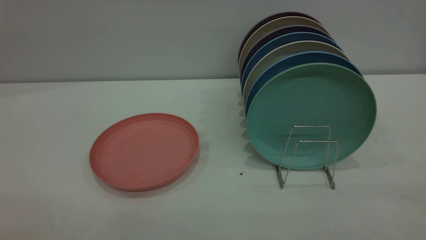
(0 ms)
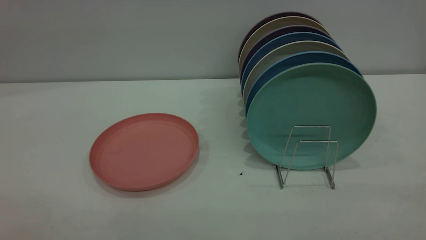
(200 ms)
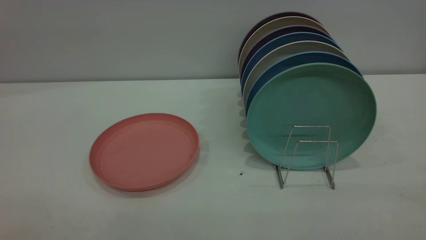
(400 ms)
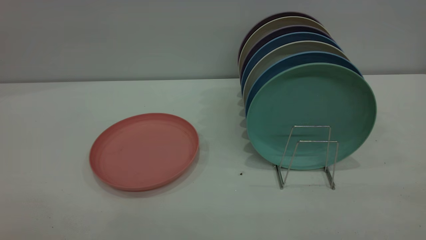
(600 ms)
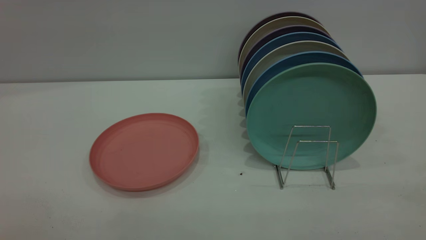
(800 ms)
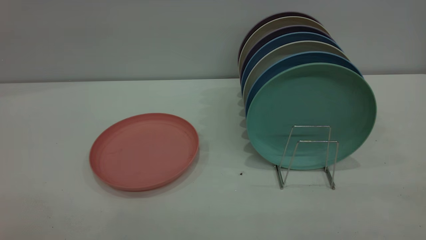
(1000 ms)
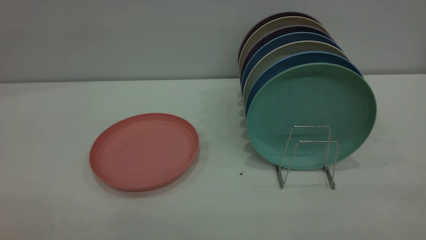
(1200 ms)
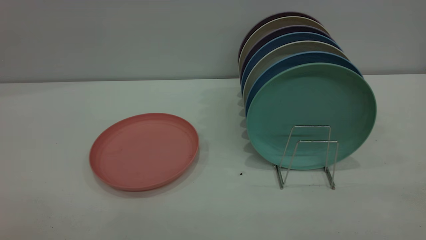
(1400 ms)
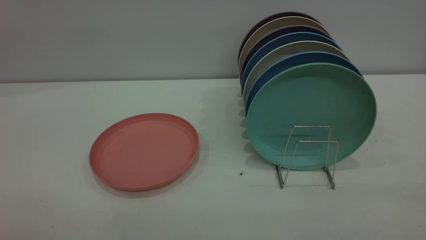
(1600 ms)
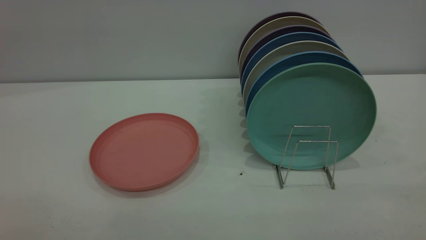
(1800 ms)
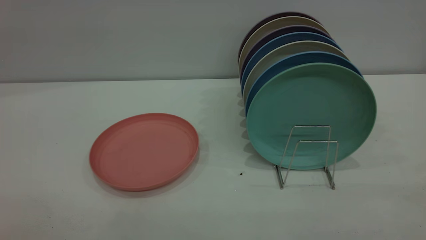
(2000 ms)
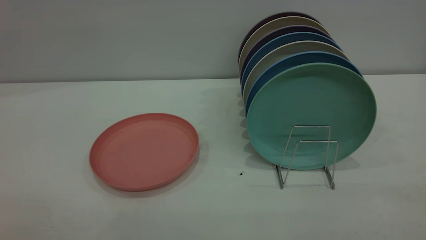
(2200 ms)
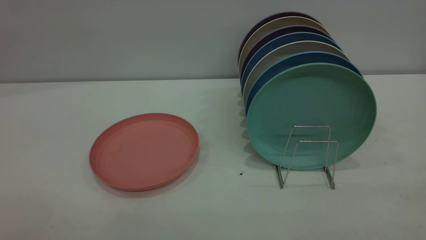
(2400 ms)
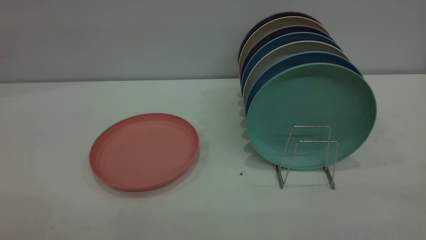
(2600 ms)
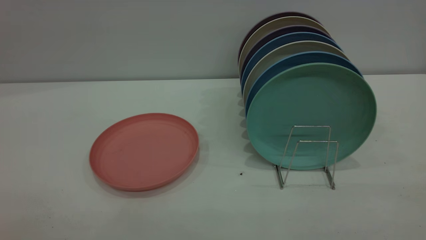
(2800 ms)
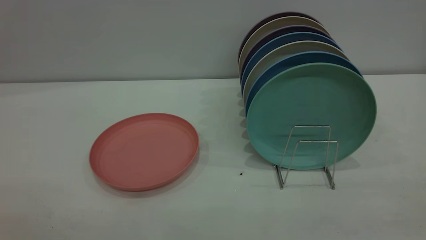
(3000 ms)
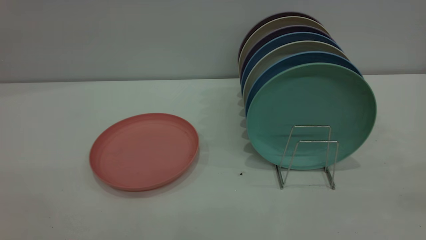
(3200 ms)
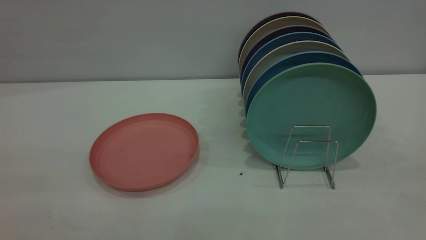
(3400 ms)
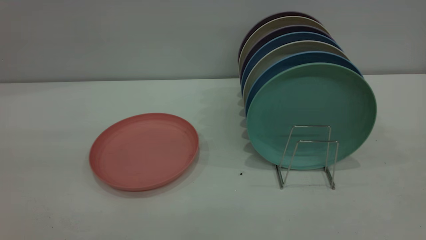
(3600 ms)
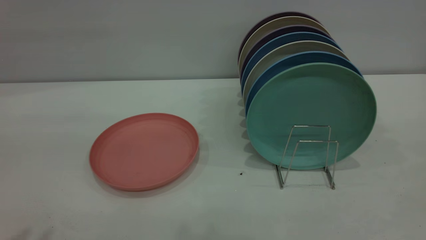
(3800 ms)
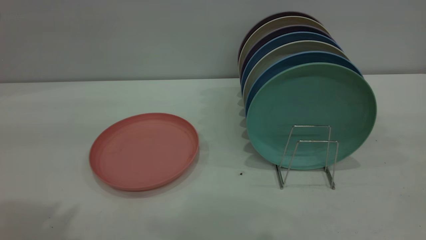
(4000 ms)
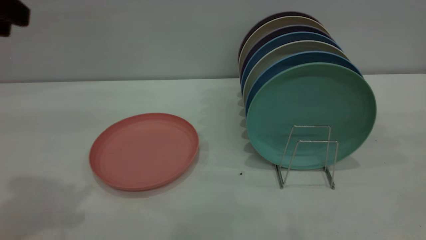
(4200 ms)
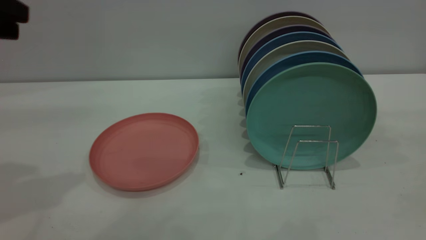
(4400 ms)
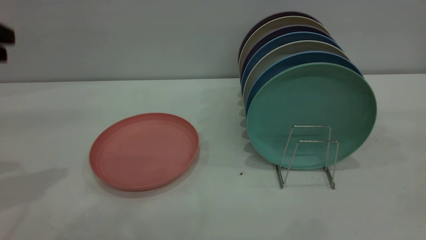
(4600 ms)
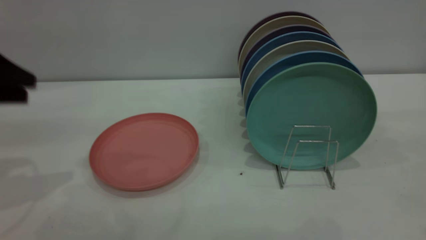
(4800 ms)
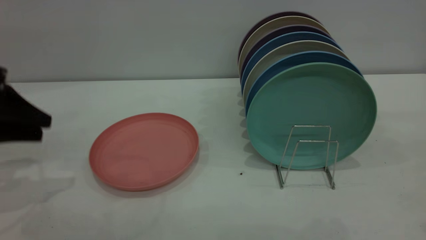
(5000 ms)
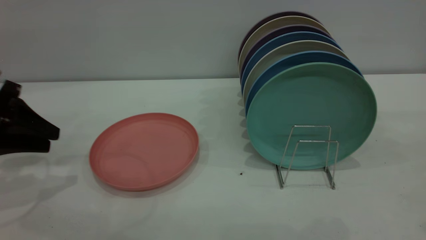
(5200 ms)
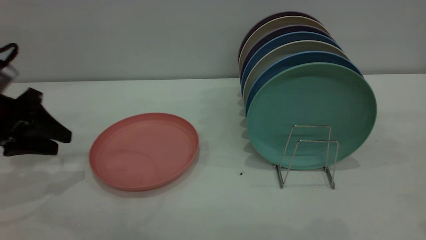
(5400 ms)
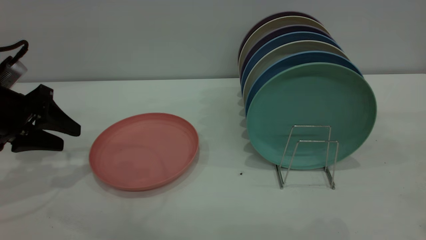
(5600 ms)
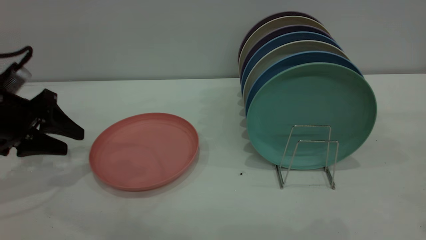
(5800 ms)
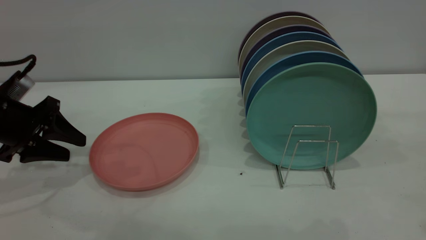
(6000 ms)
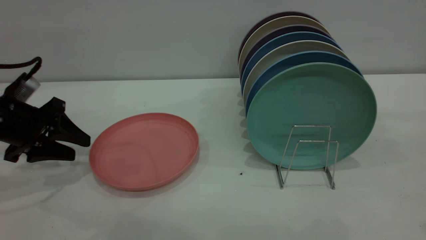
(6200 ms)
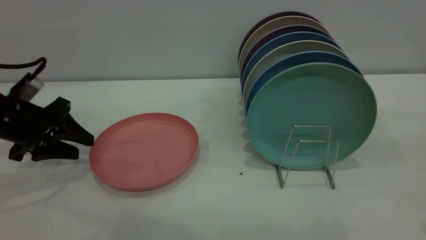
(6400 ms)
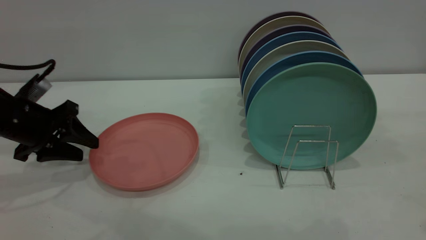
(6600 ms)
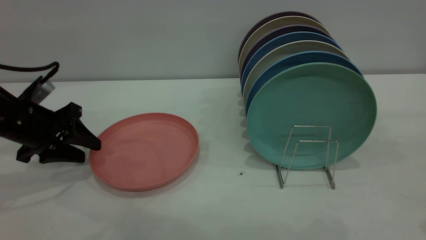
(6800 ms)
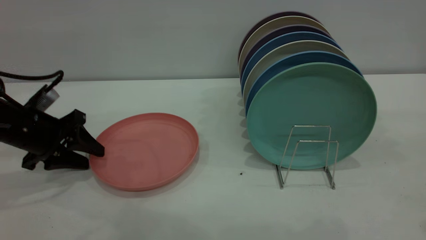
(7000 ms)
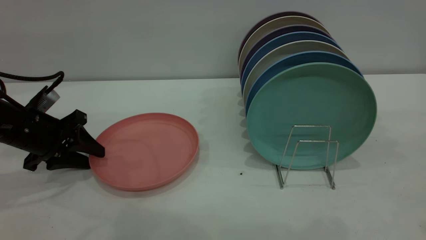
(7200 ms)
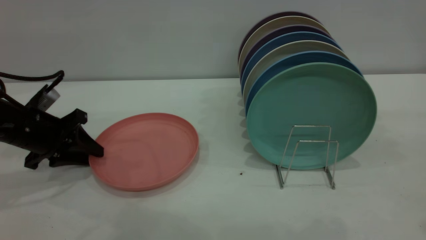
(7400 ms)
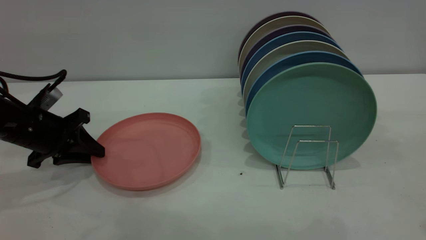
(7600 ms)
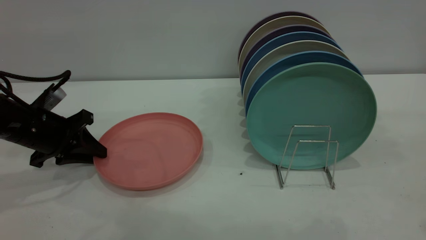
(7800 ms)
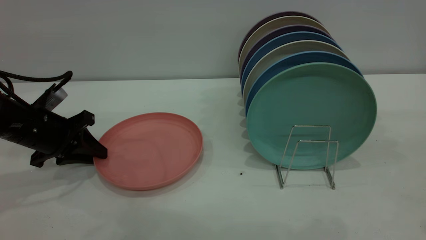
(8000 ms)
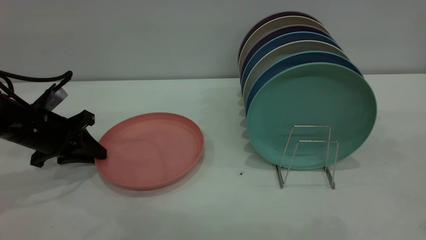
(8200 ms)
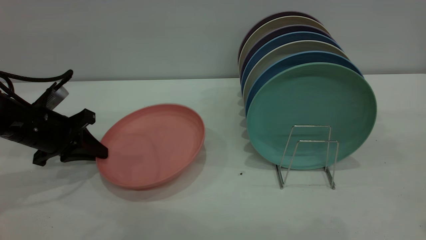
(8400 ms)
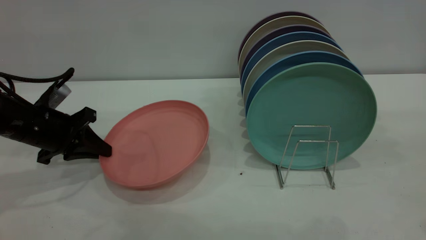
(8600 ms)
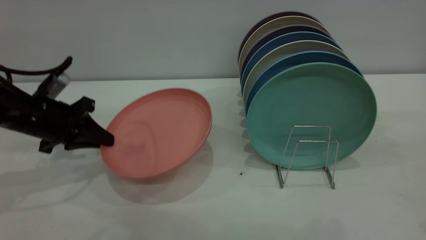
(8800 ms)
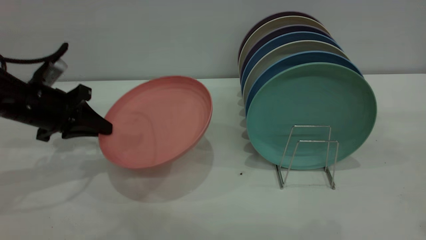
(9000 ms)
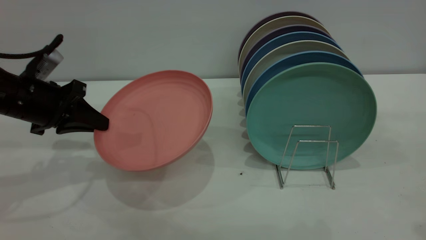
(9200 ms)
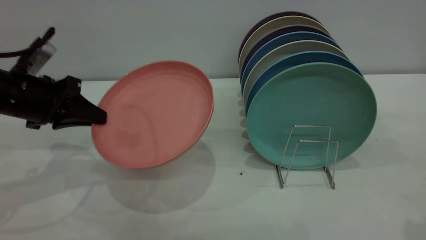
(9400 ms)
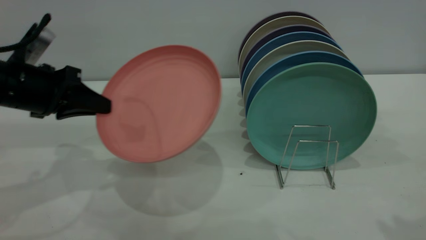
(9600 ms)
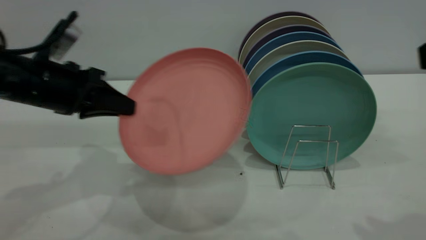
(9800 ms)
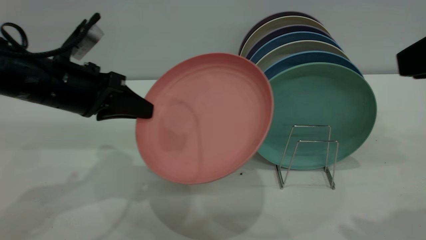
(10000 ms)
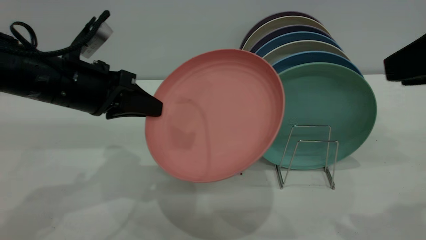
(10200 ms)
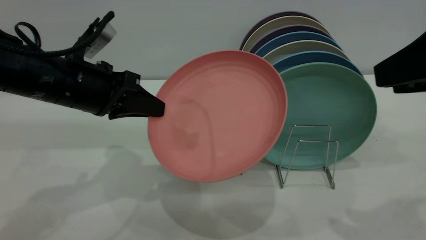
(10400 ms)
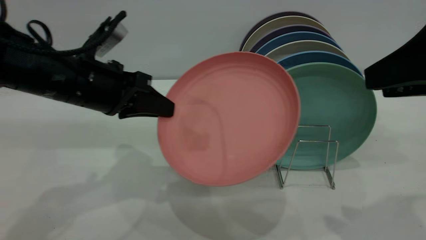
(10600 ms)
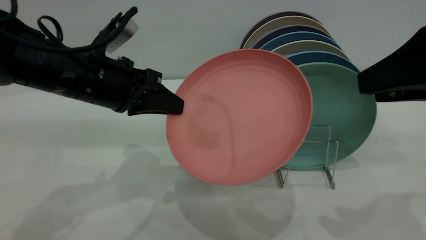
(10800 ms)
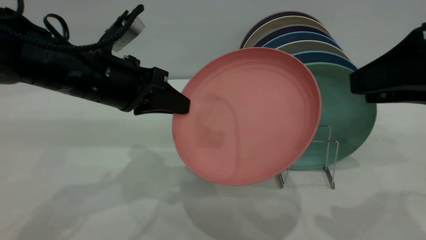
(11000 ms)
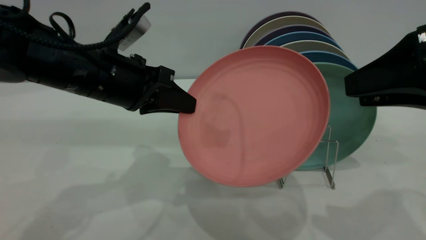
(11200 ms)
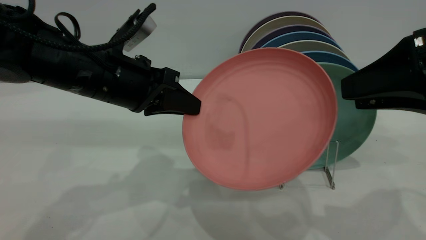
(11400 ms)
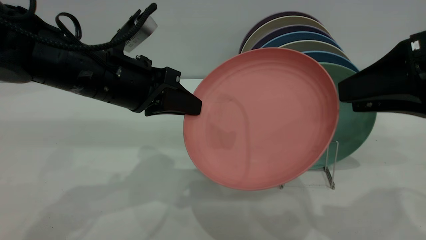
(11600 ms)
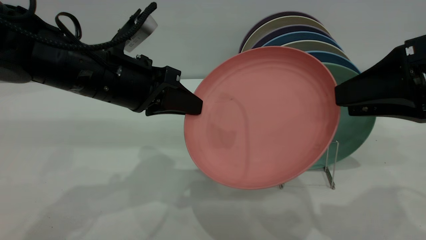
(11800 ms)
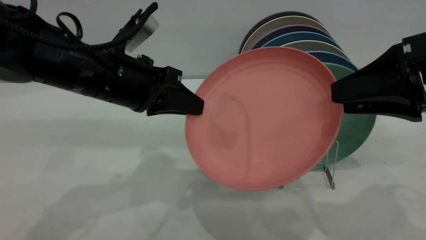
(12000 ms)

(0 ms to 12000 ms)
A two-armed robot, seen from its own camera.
Task of the whole recording: put the plate on the plate rack.
Step, 0 ms - 9000 ms: Pick up the plate with the left gripper.
0 ms - 1600 ms: Both grippers stay about where they are.
3000 ms - 4400 ms: The left gripper shifts some 30 cm forward.
4400 ms - 6000 ms: The left gripper travels downward by about 20 cm.
6000 ms - 7600 ms: The left gripper closes.
7600 ms - 9000 ms: The left gripper closes its fingers.
9000 ms - 10400 ms: The left gripper moves to the right, some 10 cm; the right gripper goes approximately 5 cm to the left, and opens up.
10400 ms - 12000 ms: The right gripper is displaced downward by some 5 cm. The left gripper goes approximately 5 cm to the right.

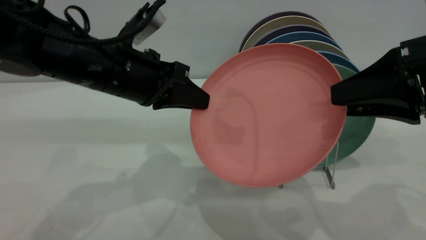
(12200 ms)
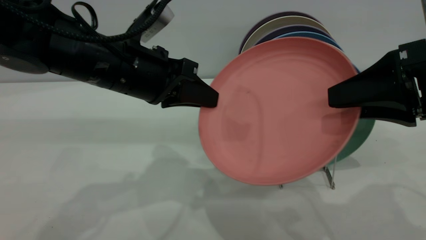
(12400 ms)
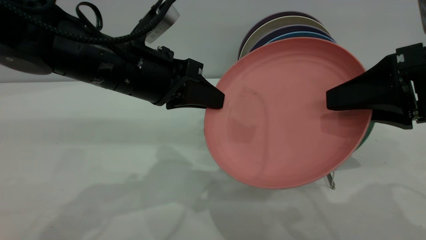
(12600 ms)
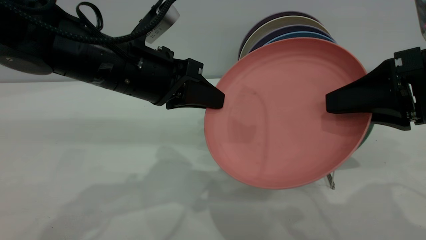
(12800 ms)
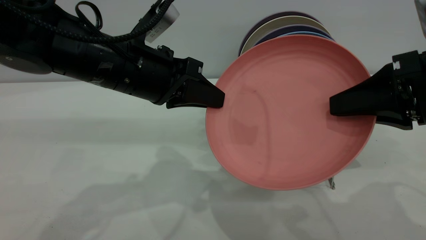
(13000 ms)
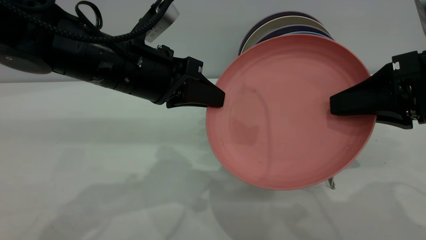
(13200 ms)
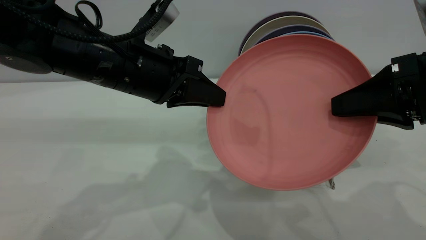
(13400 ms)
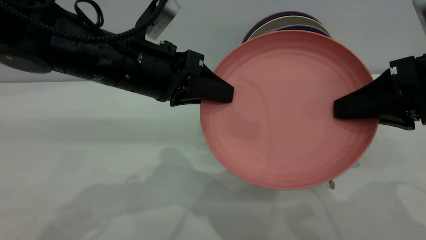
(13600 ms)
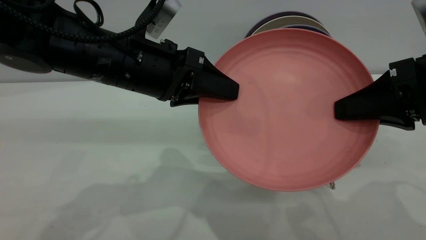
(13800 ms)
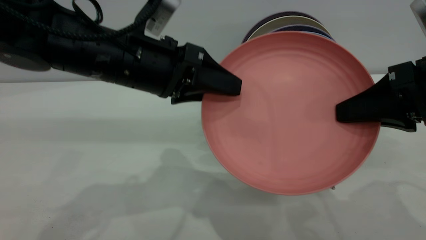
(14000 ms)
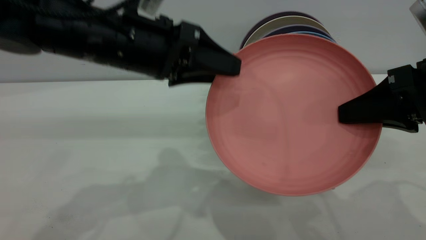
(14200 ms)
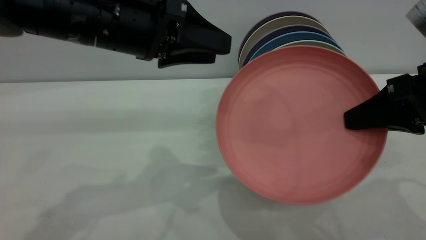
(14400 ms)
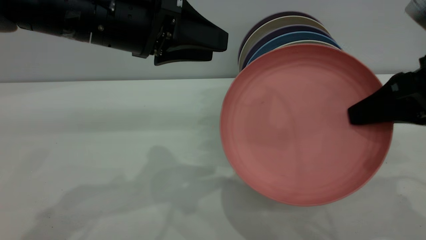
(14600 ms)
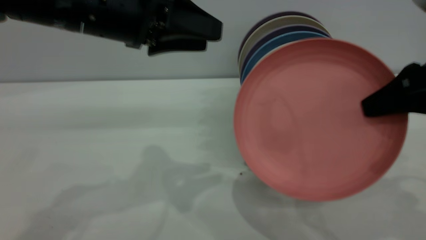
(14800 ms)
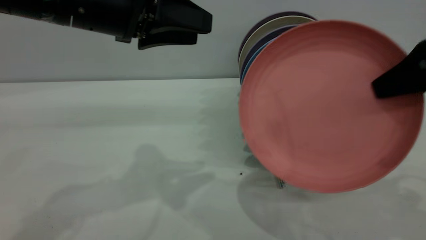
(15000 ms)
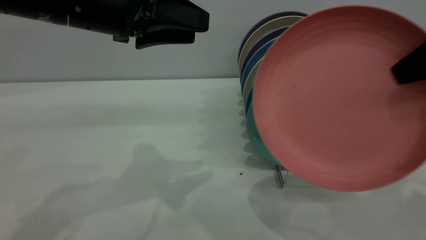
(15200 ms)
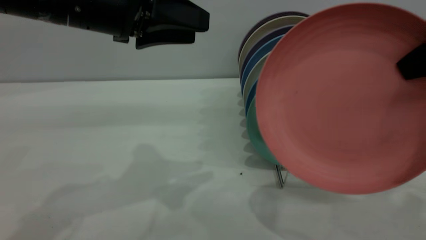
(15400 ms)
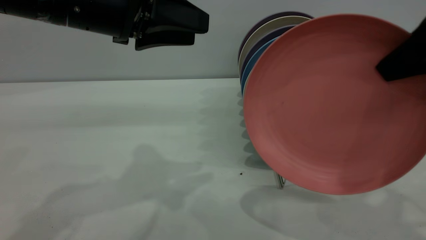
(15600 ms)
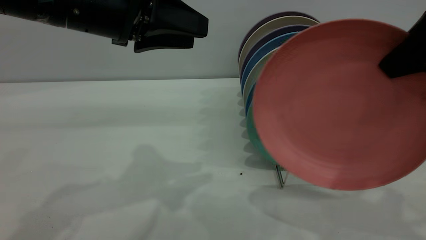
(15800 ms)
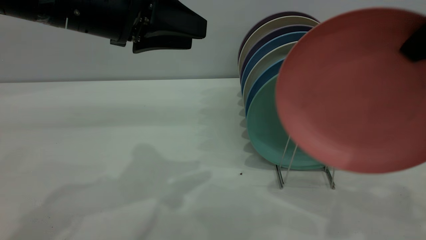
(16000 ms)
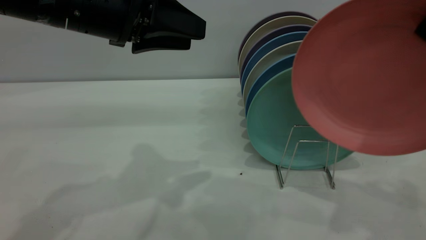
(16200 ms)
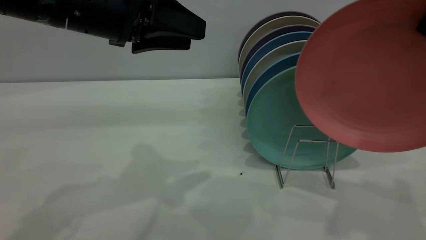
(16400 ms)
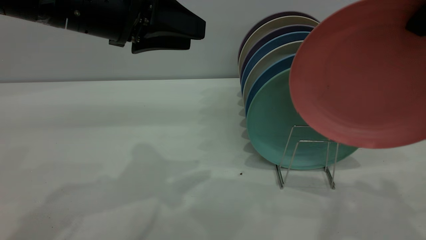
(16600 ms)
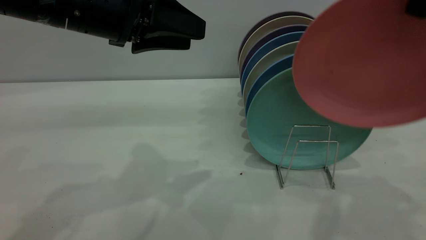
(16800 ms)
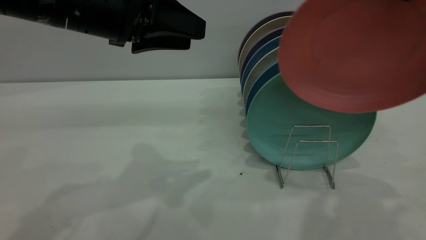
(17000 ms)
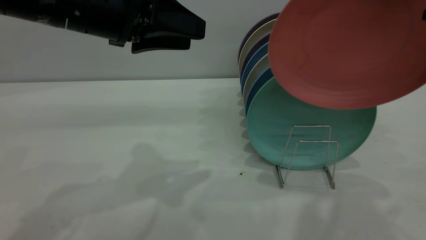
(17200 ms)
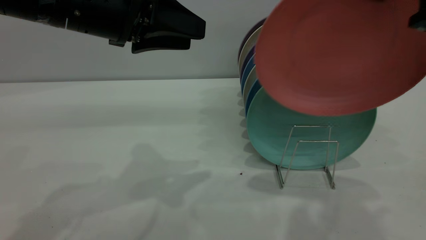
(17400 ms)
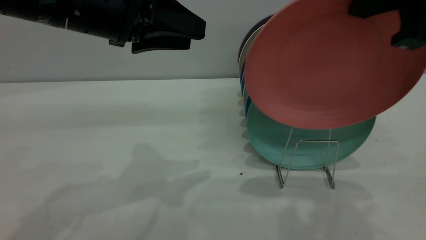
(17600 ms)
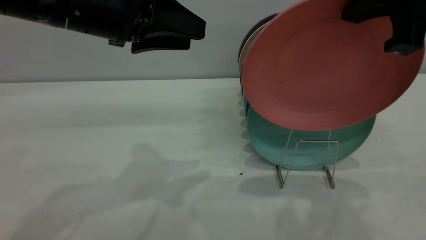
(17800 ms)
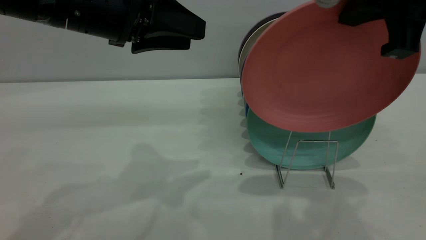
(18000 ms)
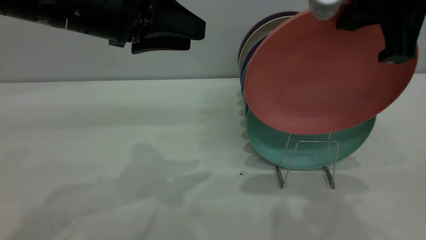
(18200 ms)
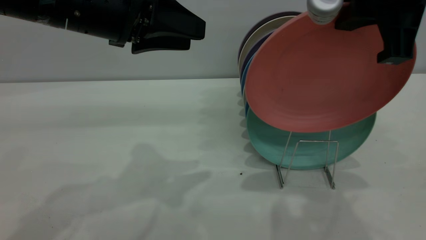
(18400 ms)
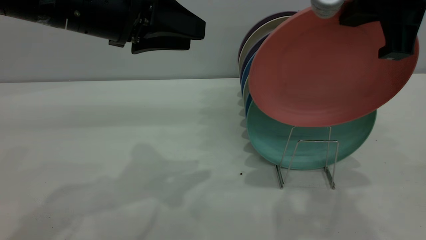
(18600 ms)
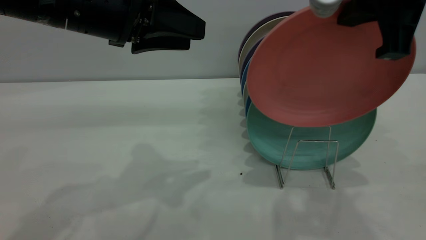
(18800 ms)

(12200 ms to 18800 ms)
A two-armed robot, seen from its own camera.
Task of the whole recording: put the plate on the plate rack.
Step, 12200 ms - 14200 ms: Pass the plate from the left gripper to the right gripper.
12200 ms - 13800 ms: The left gripper opens its fingers. Meanwhile the right gripper closes its fingers.
13800 ms - 15400 ms: The grippers both shift upward by roughly 10 cm.
15400 ms - 17200 ms: The right gripper travels to the left and upward by some 10 cm.
17200 ms - 18800 ms: The right gripper shifts by approximately 5 cm.
